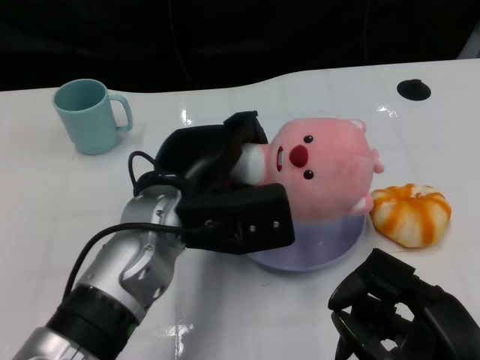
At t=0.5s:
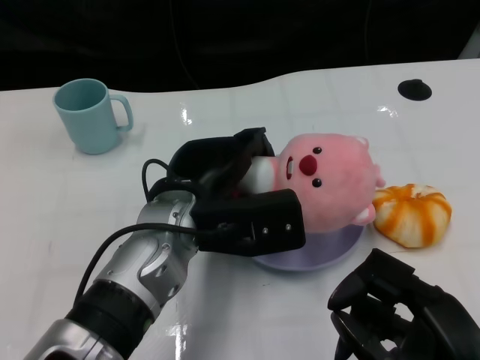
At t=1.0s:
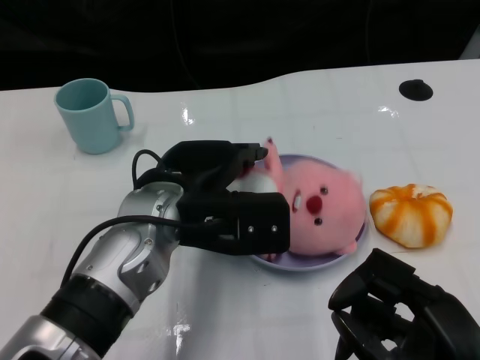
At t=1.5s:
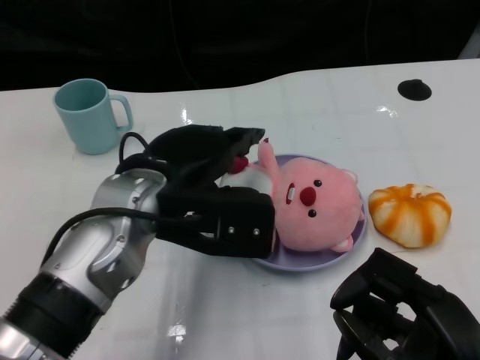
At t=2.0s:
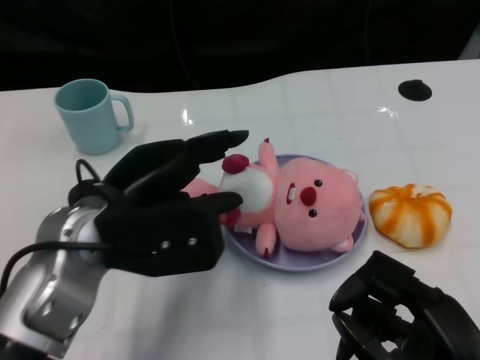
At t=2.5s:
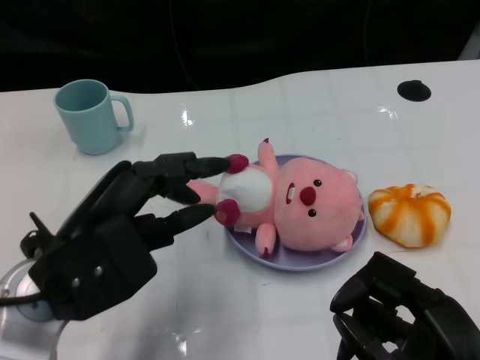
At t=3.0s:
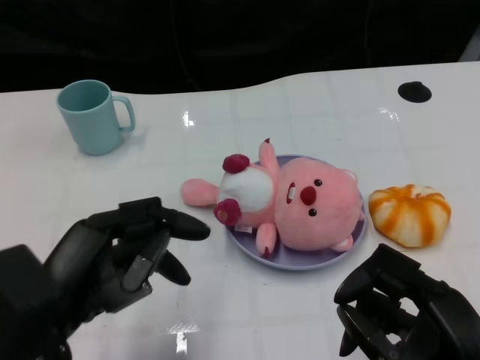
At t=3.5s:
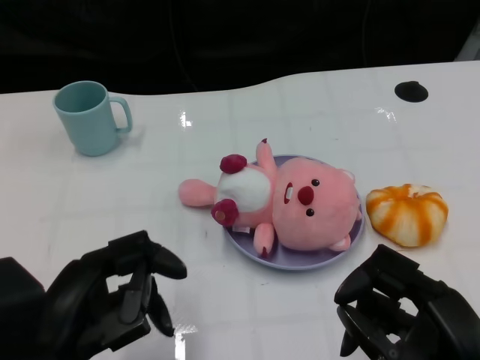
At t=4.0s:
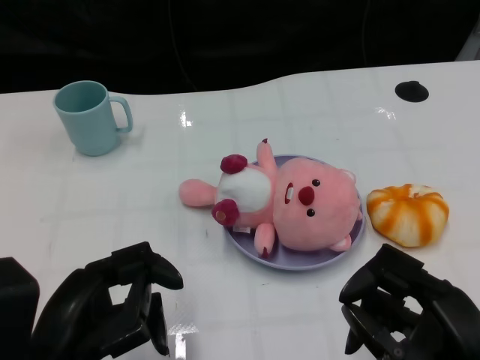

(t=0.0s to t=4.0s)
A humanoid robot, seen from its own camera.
Task of the whole recording: Pick up the doll on one side of the plate and place it into the plate.
t=0.0s - t=2.0s: The left hand goes some 5 cm to the left.
t=2.0s - t=4.0s: The left hand goes approximately 15 cm backward, downward and to the left.

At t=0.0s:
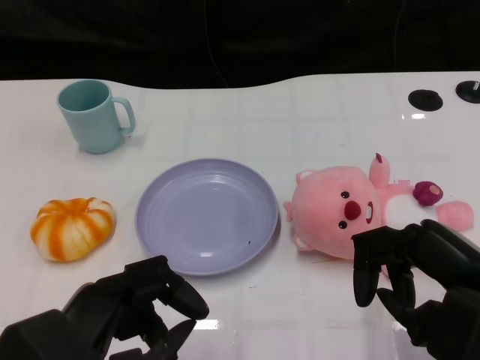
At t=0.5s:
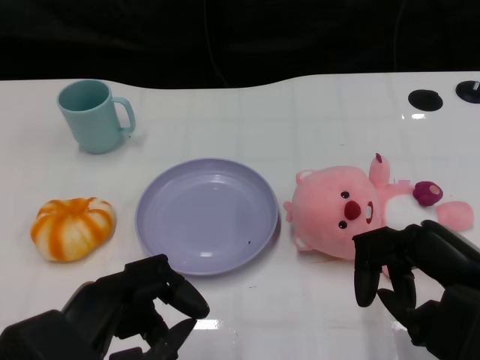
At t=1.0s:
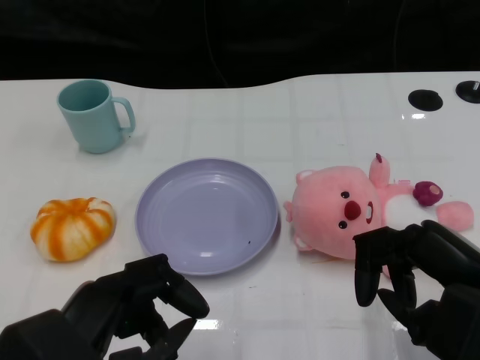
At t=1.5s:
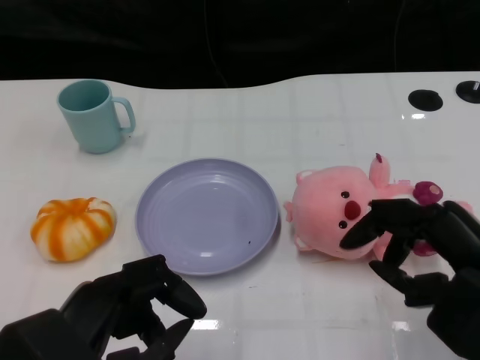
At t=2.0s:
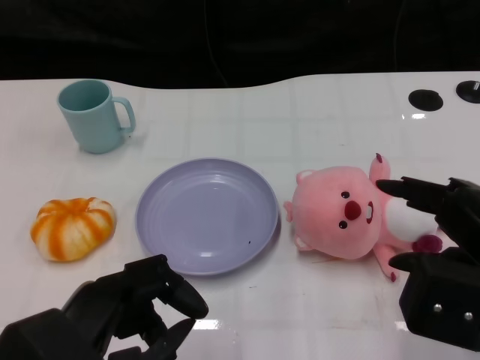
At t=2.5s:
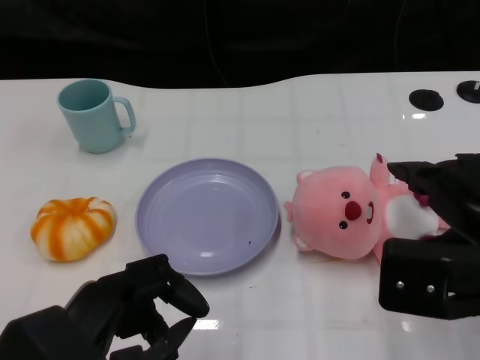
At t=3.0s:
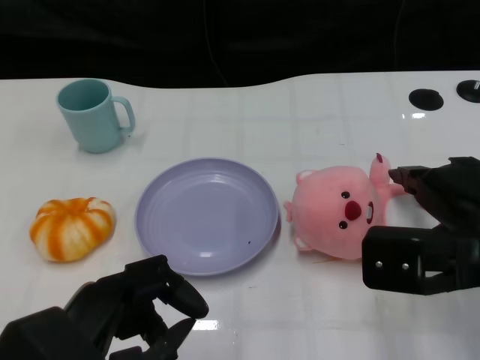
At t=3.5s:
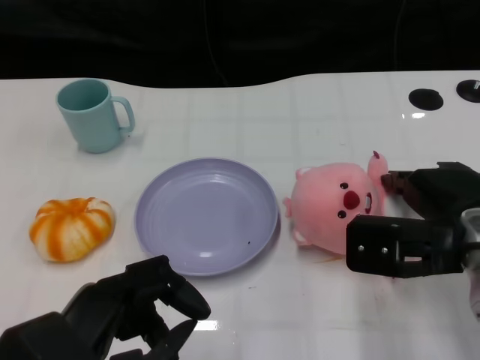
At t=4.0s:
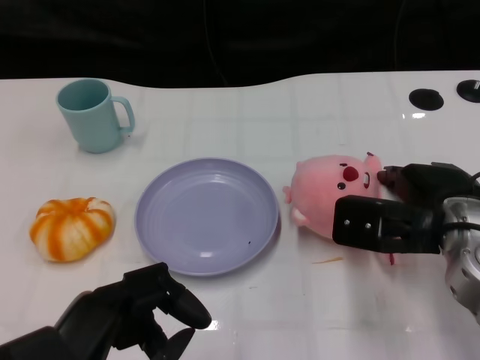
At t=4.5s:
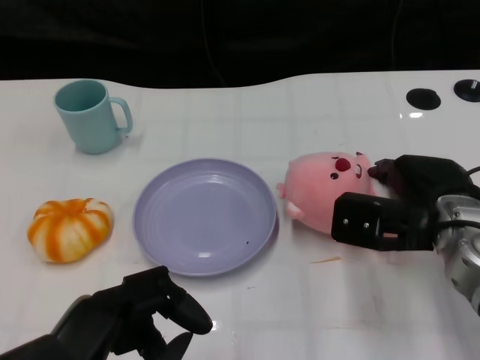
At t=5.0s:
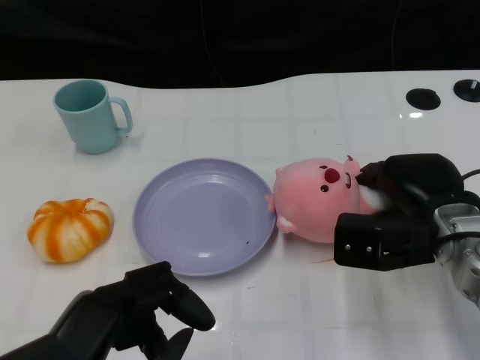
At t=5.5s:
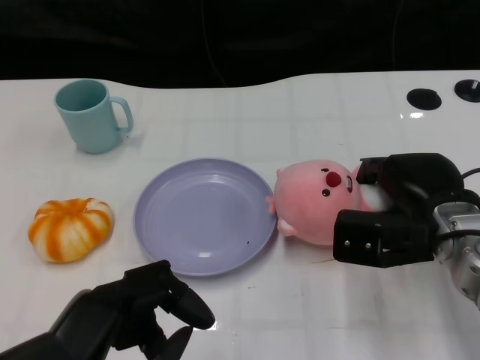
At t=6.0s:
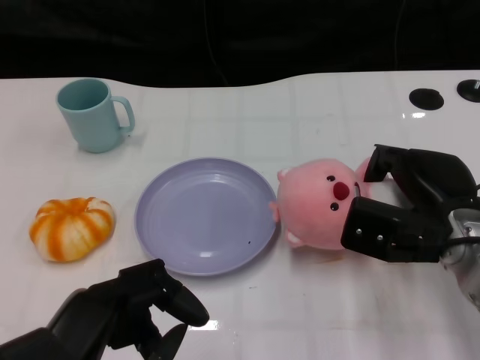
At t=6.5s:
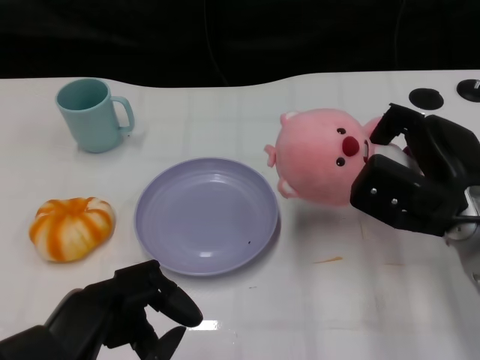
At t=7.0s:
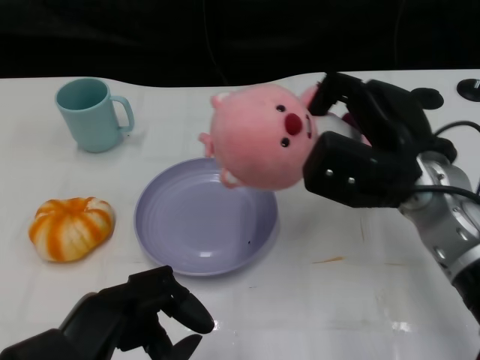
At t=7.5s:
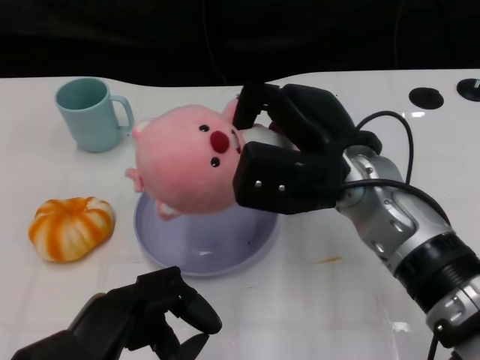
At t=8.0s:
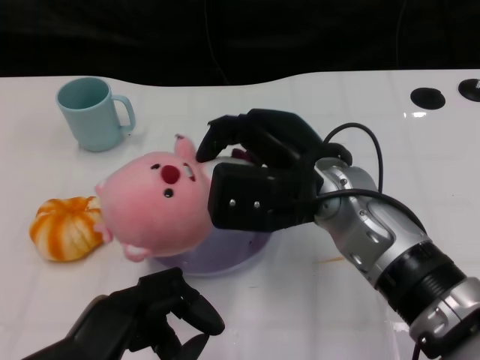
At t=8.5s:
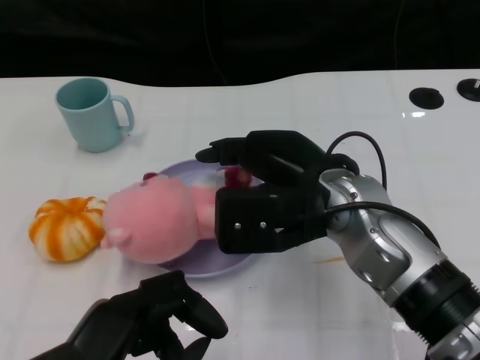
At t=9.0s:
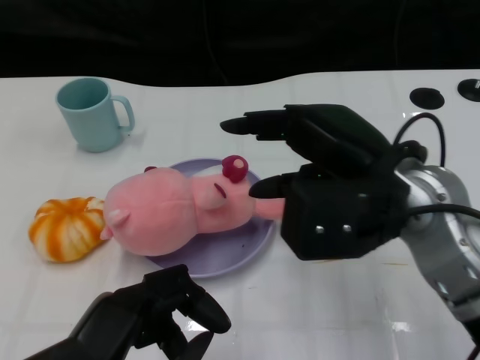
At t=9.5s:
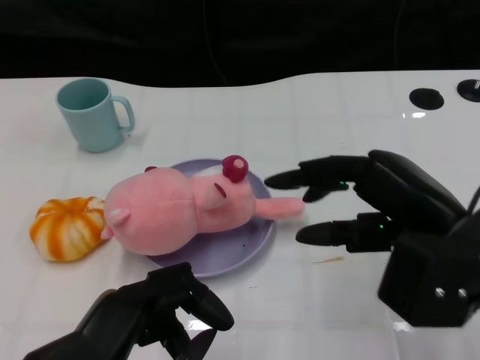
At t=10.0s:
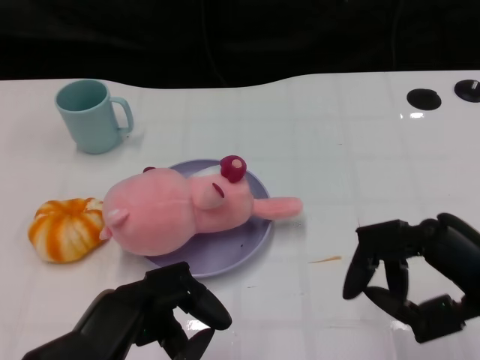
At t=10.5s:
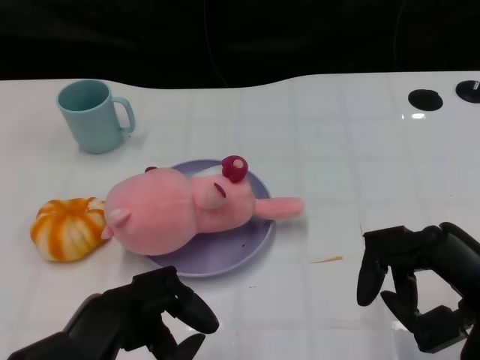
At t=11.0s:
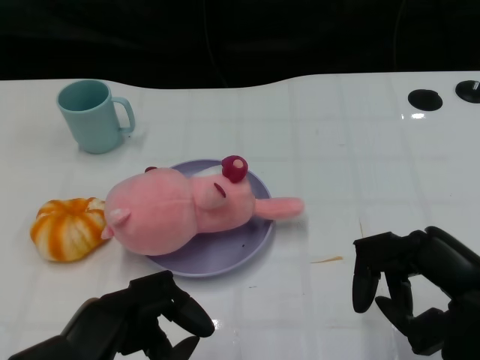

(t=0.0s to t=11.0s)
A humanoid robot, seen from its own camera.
Task of the whole recording: Pick up the doll on the other side of the plate and place it into the plate.
Step, t=1.5s - t=7.0s: Grasp the pink doll with the right gripper.
Step, t=7.5s - t=9.0s: Place the pink doll into the plate with the right gripper.
t=2.0s - t=3.5s: The right hand is displaced forward by approximately 10 cm.
t=3.5s - t=5.5s: The right hand changes place by roughly 5 cm.
t=5.5s - t=7.5s: The right hand moves to the left and upward, some 10 cm.
t=7.5s - t=9.0s: The right hand moves about 5 cm.
t=9.0s - t=11.0s: The right hand shifts about 15 cm to the right, backward and downward.

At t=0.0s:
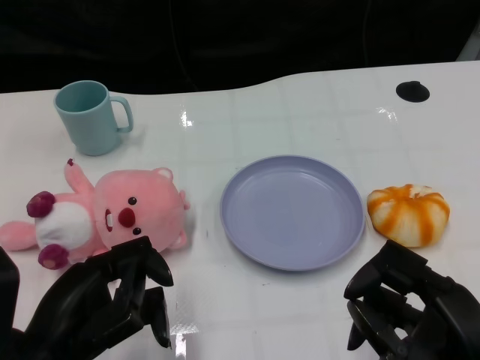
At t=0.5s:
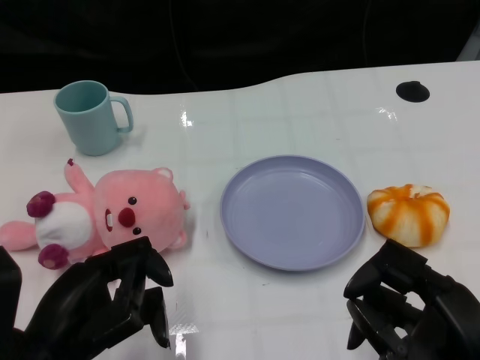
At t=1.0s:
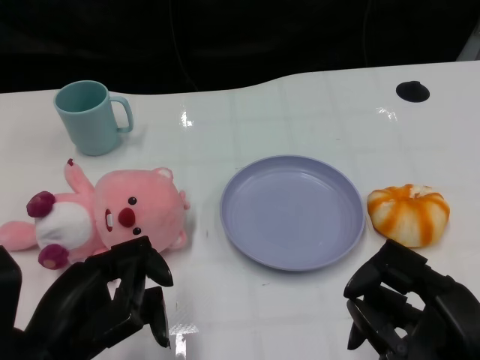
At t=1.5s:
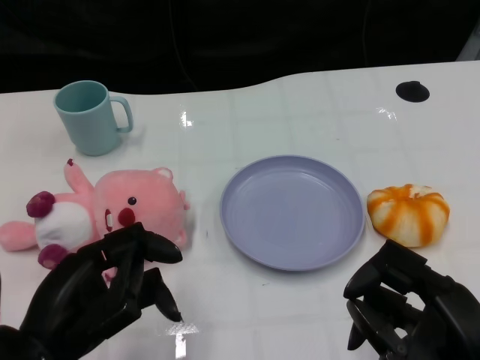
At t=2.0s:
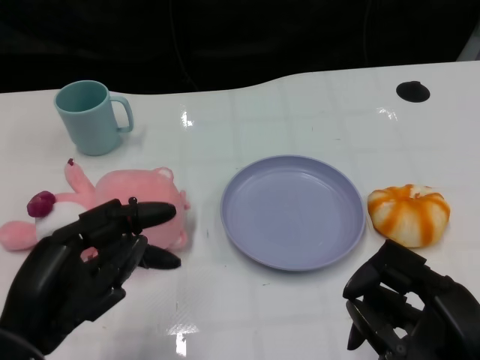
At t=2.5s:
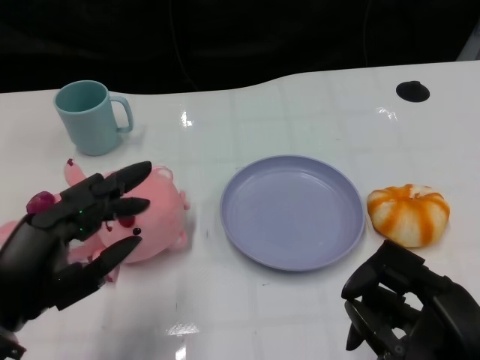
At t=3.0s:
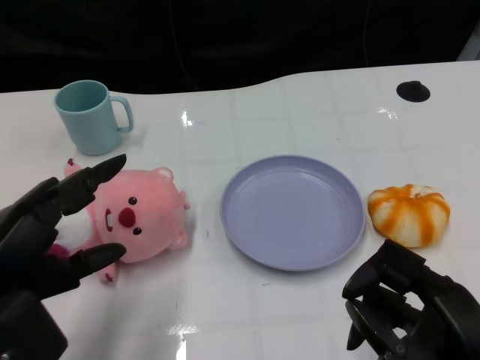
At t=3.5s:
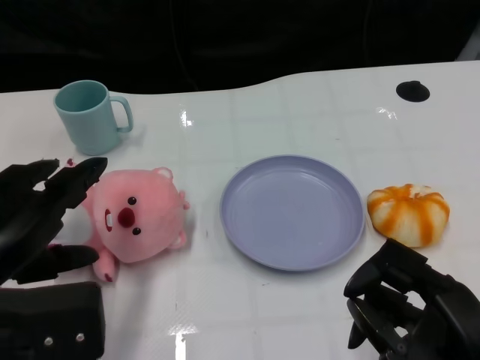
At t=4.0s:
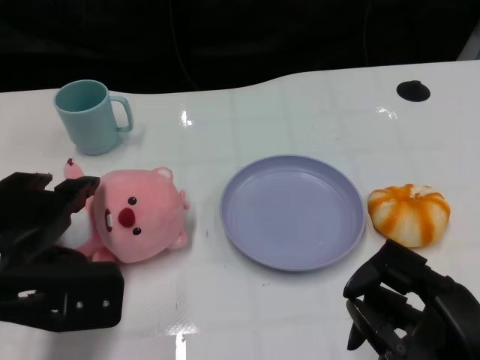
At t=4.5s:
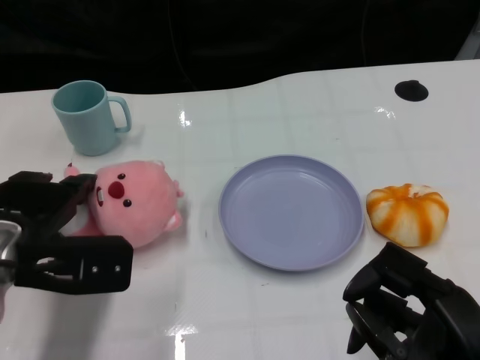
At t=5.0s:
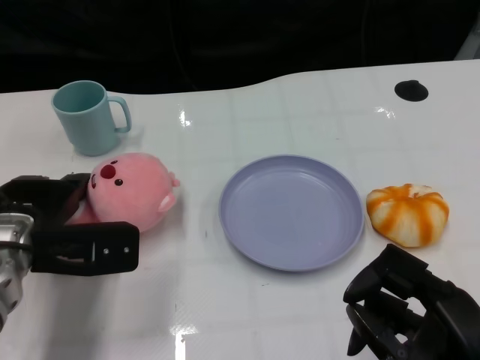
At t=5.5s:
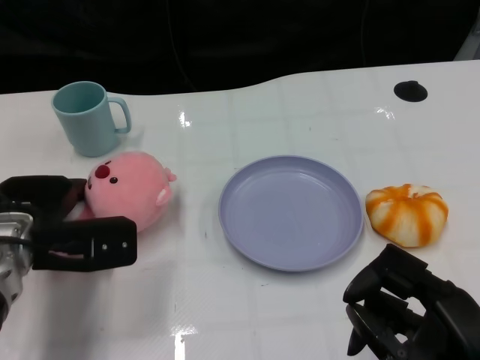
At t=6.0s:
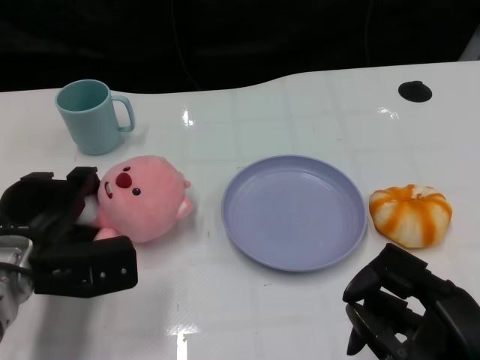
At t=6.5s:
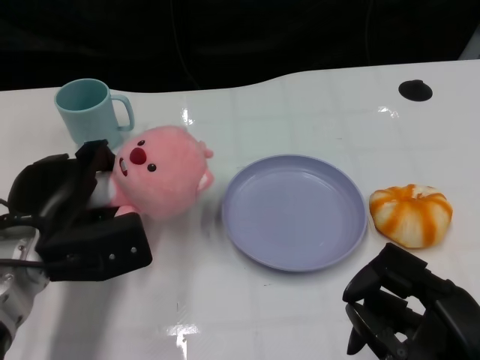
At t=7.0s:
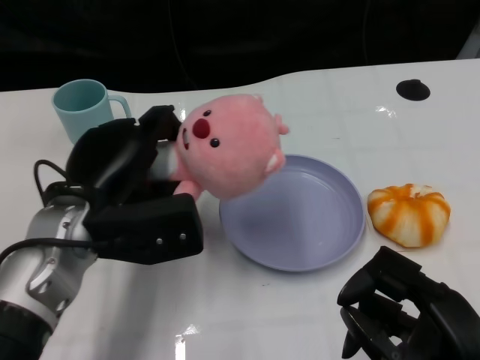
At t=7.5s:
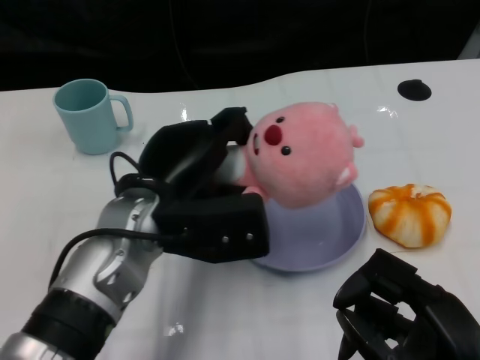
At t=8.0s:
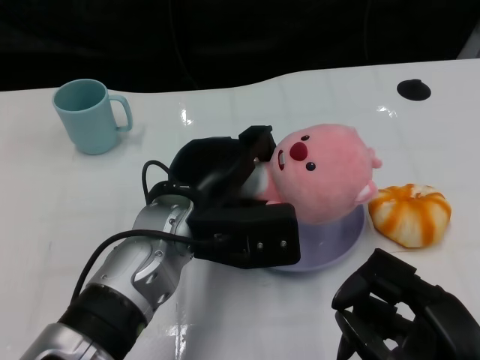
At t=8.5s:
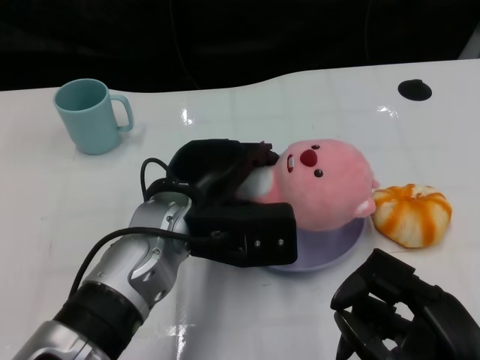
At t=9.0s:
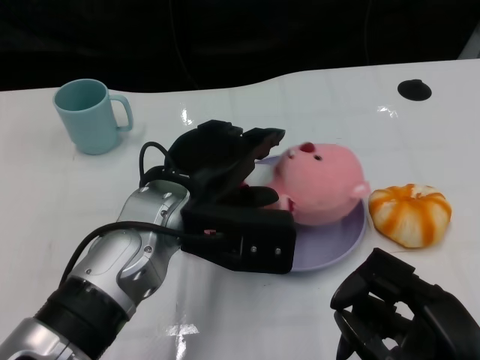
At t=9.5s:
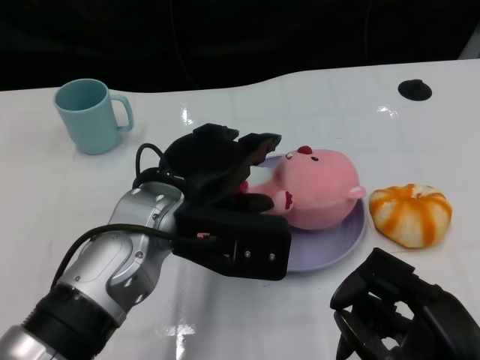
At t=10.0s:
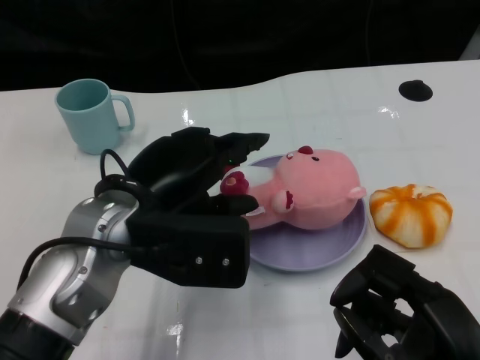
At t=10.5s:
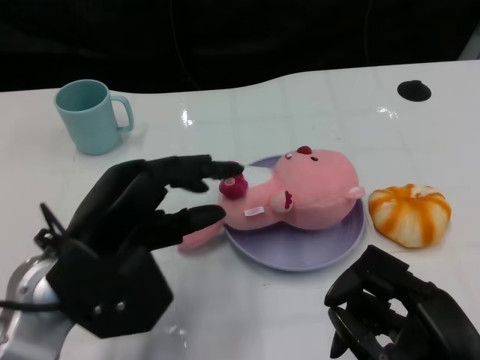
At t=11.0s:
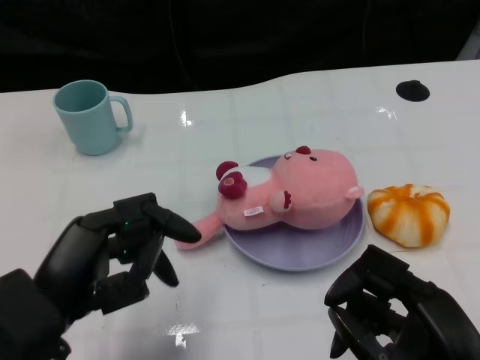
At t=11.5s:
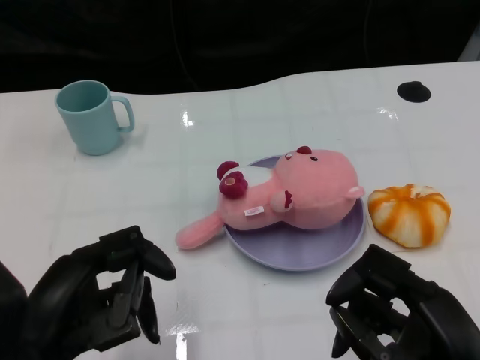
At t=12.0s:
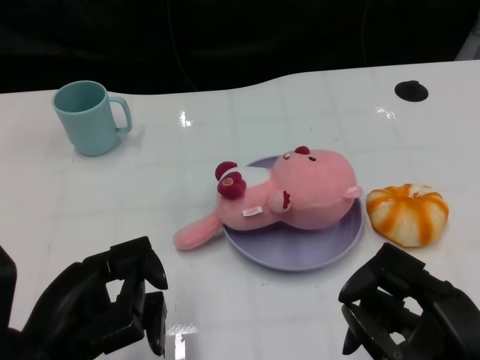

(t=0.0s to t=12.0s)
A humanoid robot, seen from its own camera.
Task of the whole recording: Pick up the doll on one side of the plate and place it into the plate.
Step, t=1.5s - t=6.0s: Grasp the pink doll with the left gripper.
Step, t=6.5s - t=9.0s: Place the pink doll into the plate with the left gripper.
t=2.0s - t=4.0s: The left hand moves forward, approximately 5 cm.
t=4.0s - t=6.0s: The left hand shifts approximately 10 cm downward and forward.
t=6.0s - t=8.0s: The left hand heads to the right, covering roughly 15 cm.
t=8.0s - t=10.0s: The left hand shifts some 5 cm to the left.
t=10.0s - t=12.0s: The left hand travels backward, to the left and downward by roughly 15 cm.
